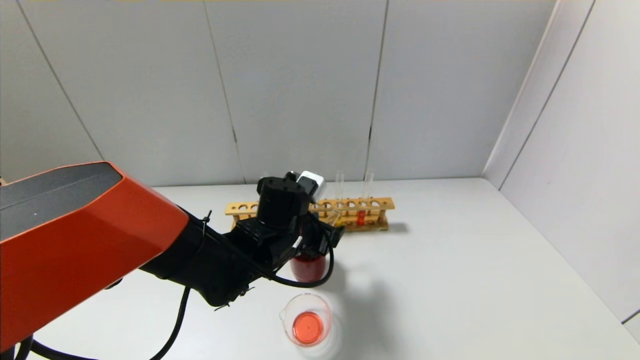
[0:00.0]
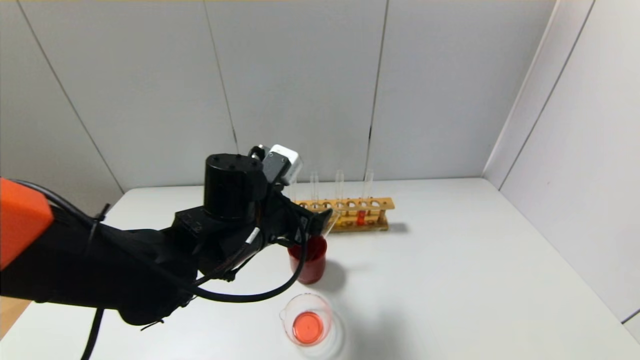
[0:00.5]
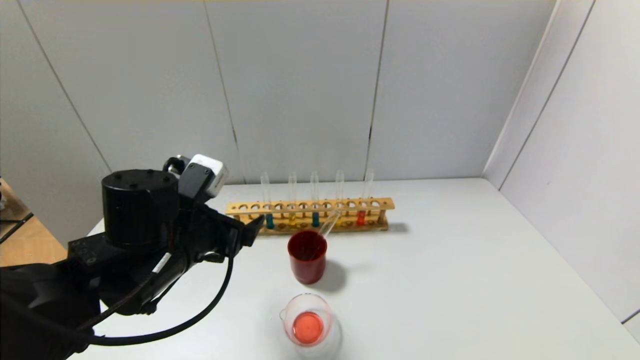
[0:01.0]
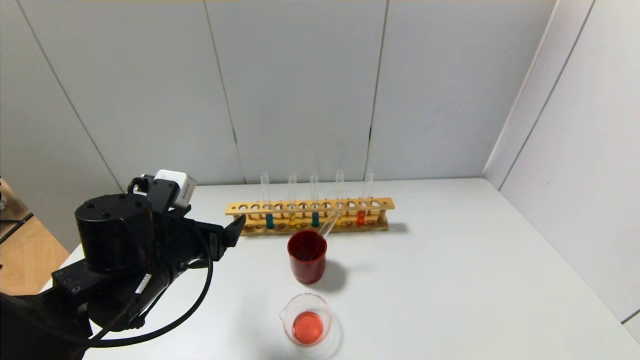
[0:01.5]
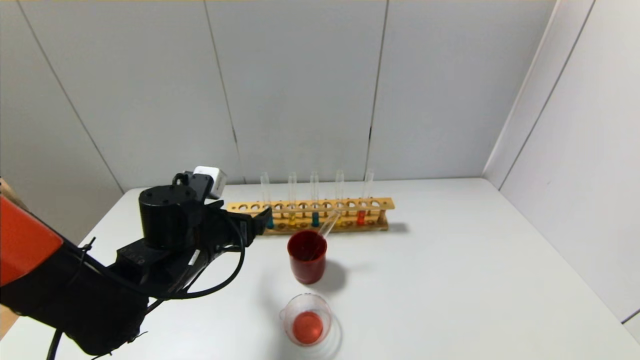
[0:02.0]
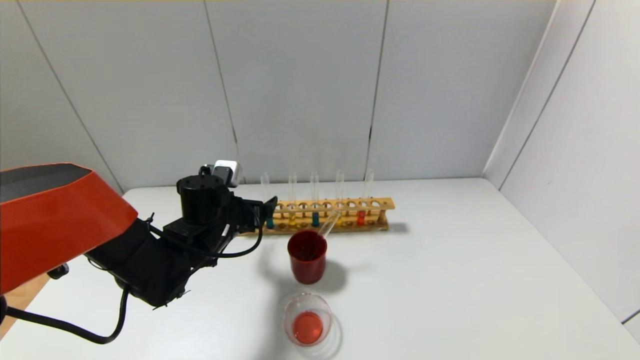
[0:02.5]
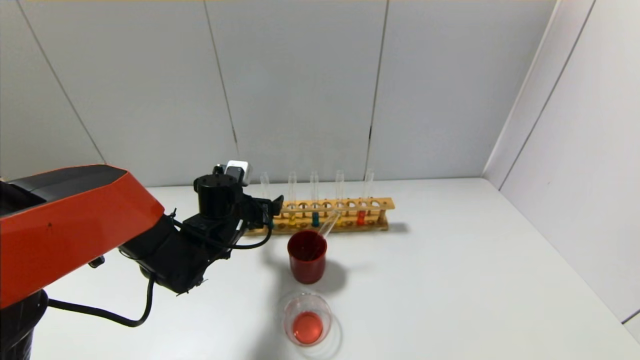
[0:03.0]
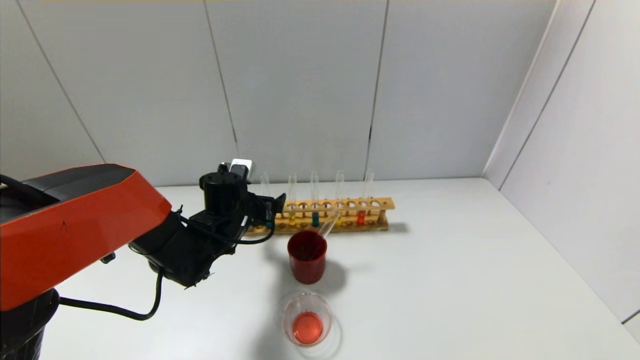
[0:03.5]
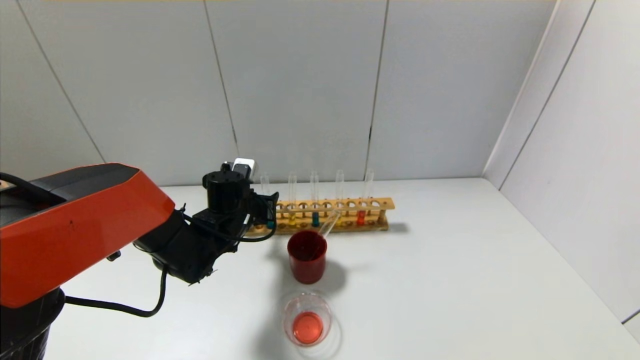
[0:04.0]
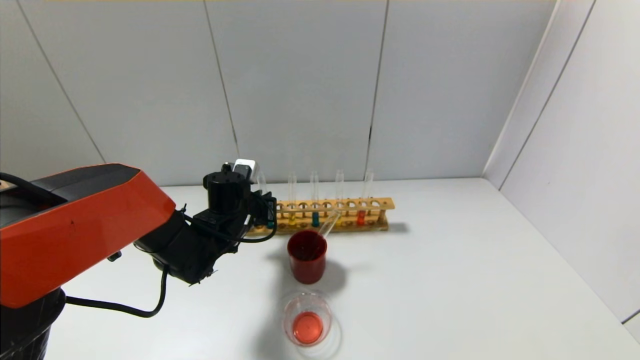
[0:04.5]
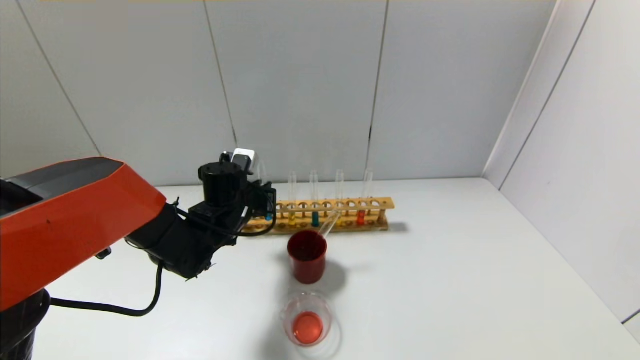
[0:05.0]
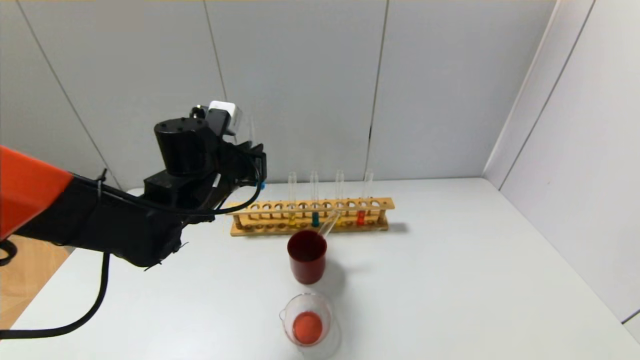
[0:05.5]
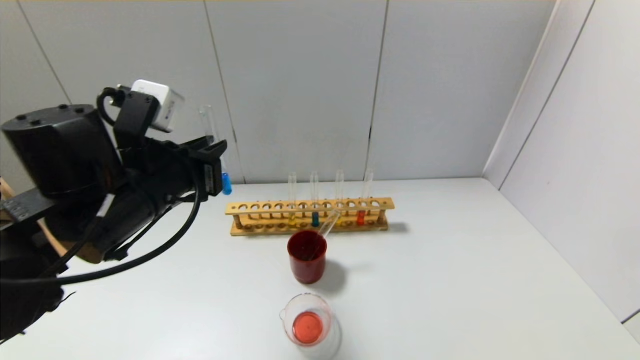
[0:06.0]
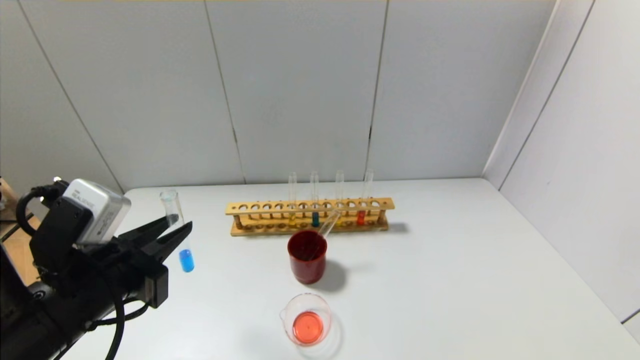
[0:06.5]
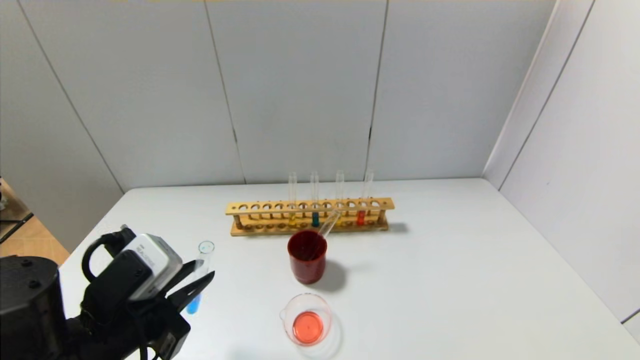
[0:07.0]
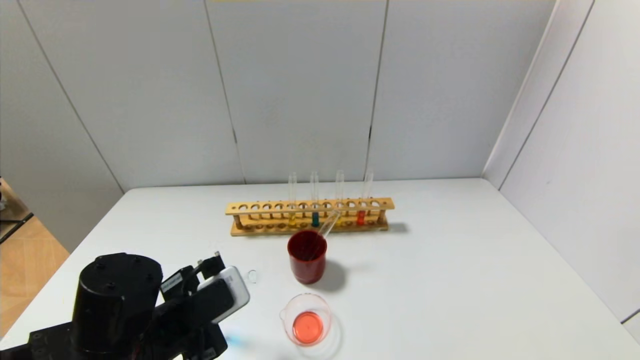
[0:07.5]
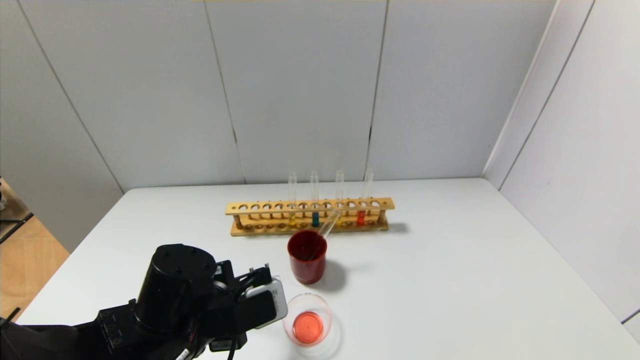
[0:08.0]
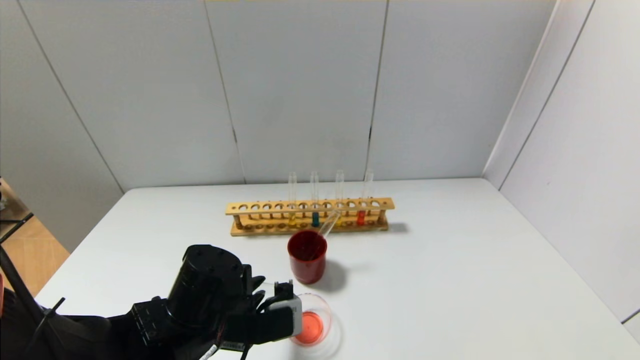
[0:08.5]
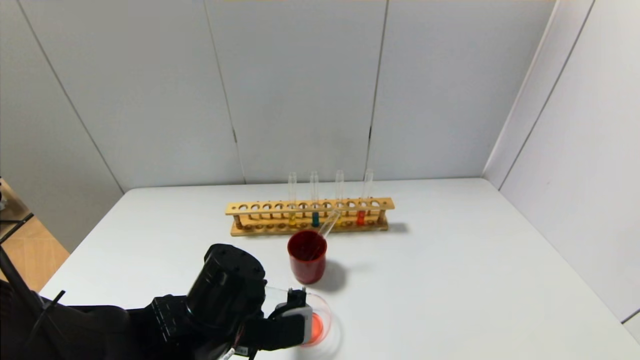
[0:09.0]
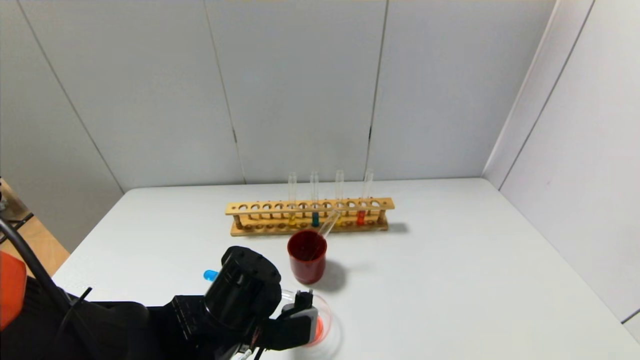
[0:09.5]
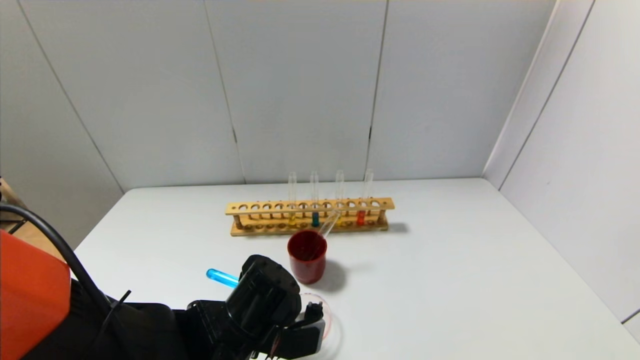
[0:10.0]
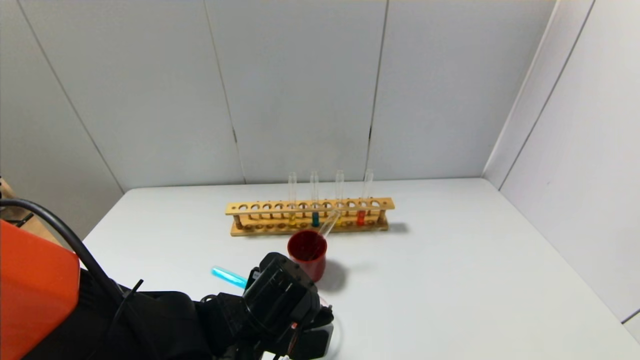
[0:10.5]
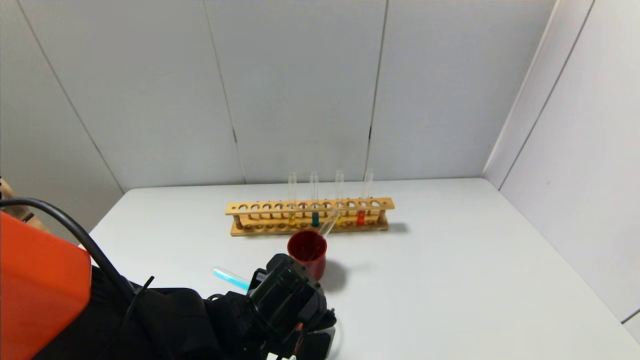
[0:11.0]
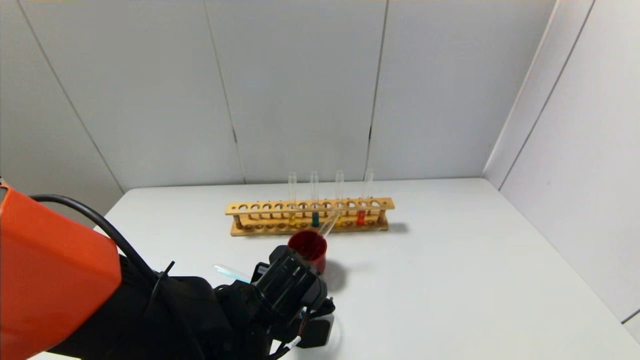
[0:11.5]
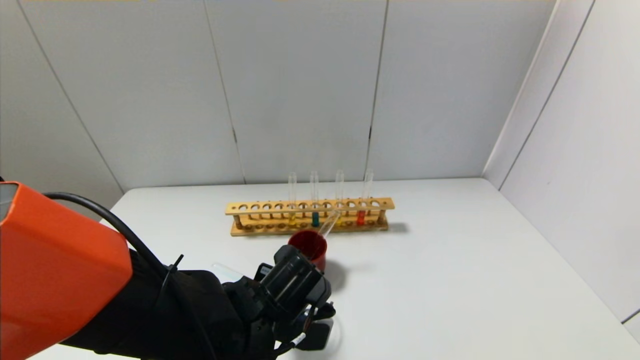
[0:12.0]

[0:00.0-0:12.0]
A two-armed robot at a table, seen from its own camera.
Step, 0:00.5 to 0:04.5: Grasp the blue reagent with the left gripper.
0:00.0 to 0:02.0: The left gripper is displaced to the left by some 10 cm.
0:02.0 to 0:04.0: The left gripper travels forward by roughly 10 cm, and closes its fingers.
0:04.0 to 0:06.0: The left gripper shifts some 20 cm backward and upward, and closes.
0:06.0 to 0:08.0: The left gripper heads downward, covering approximately 15 cm.
0:08.0 to 0:10.0: The left gripper shifts about 5 cm to the right.
0:10.0 to 0:12.0: The grippers make only small movements.

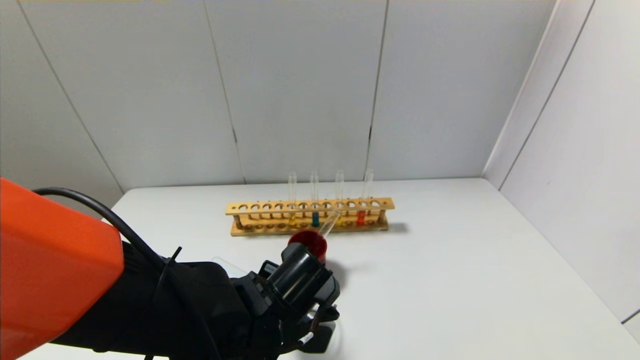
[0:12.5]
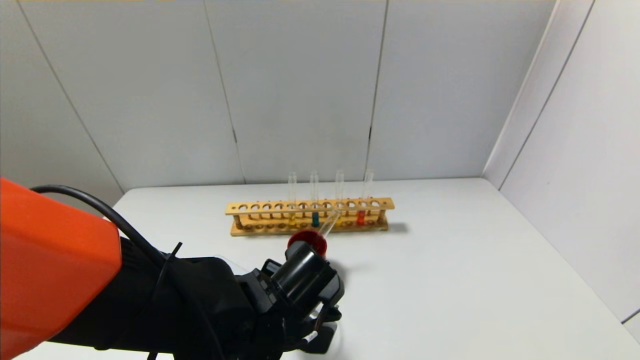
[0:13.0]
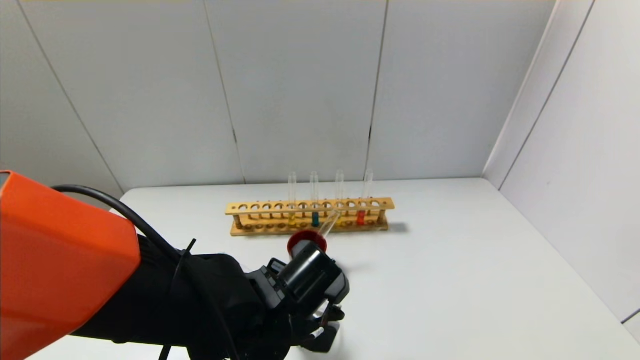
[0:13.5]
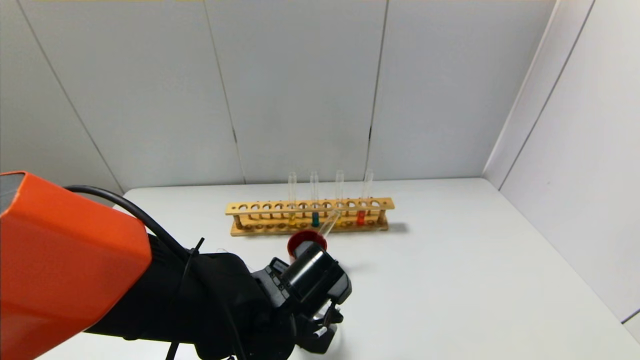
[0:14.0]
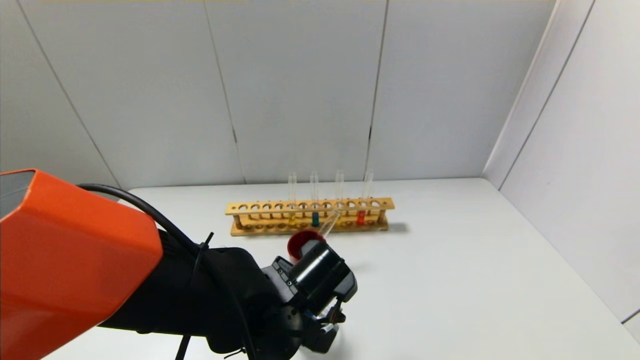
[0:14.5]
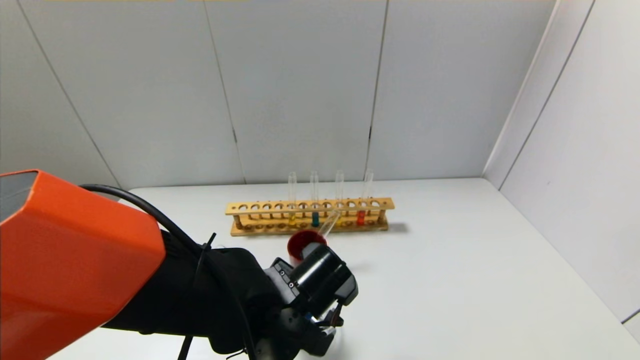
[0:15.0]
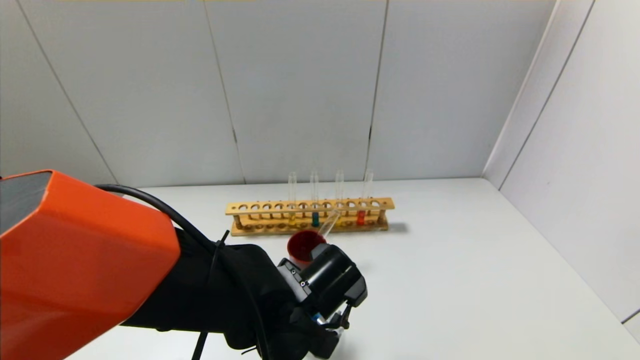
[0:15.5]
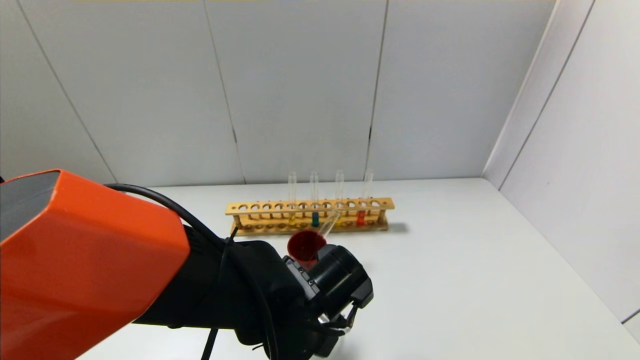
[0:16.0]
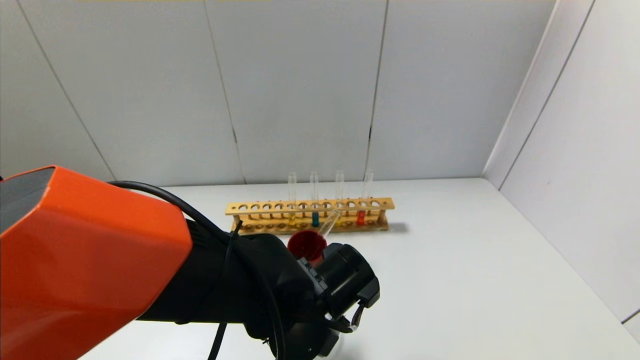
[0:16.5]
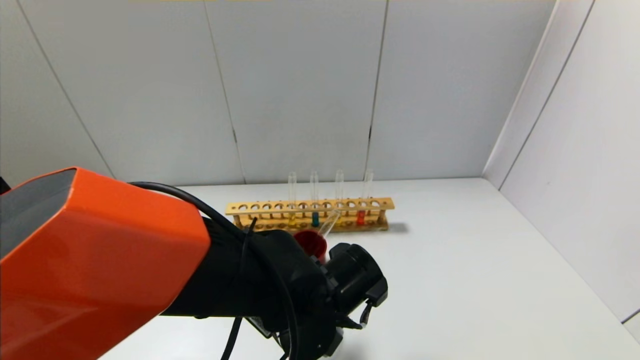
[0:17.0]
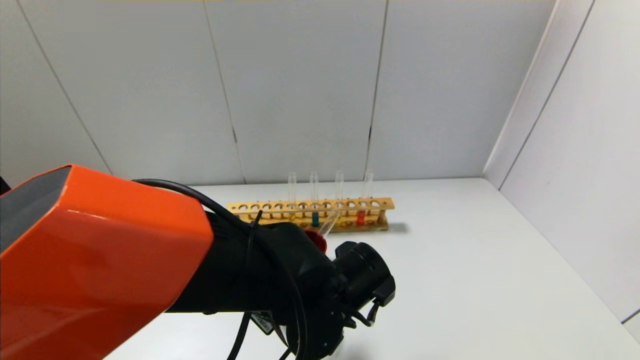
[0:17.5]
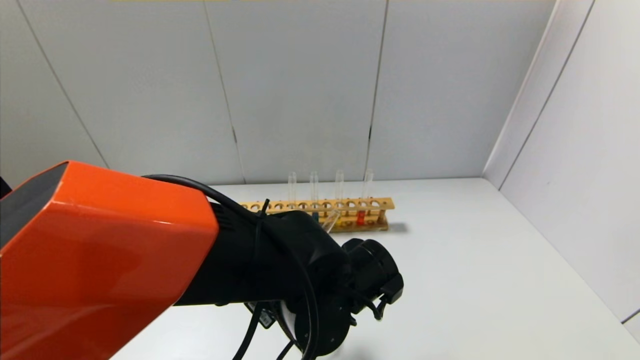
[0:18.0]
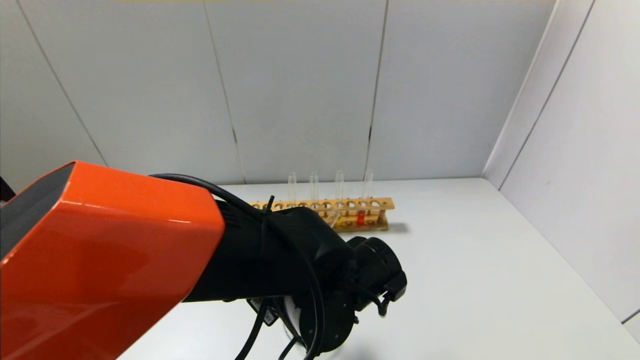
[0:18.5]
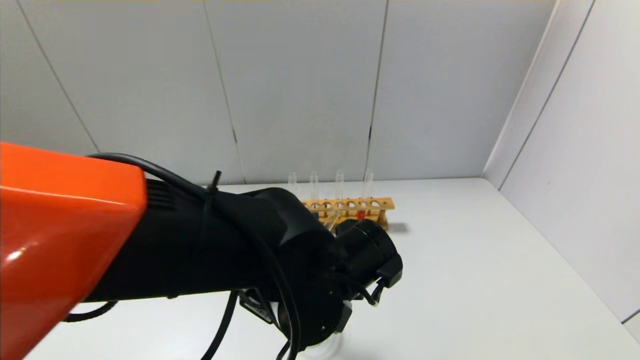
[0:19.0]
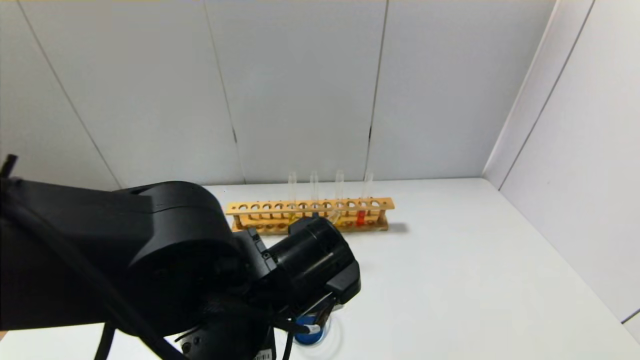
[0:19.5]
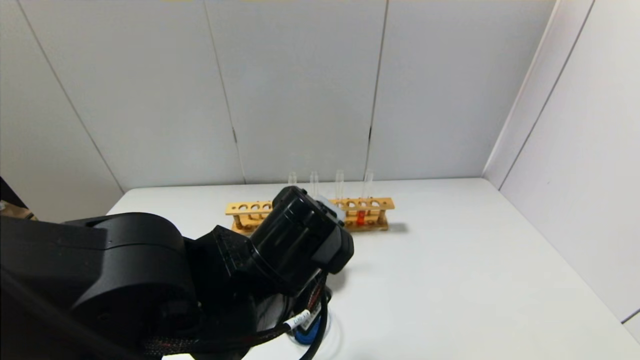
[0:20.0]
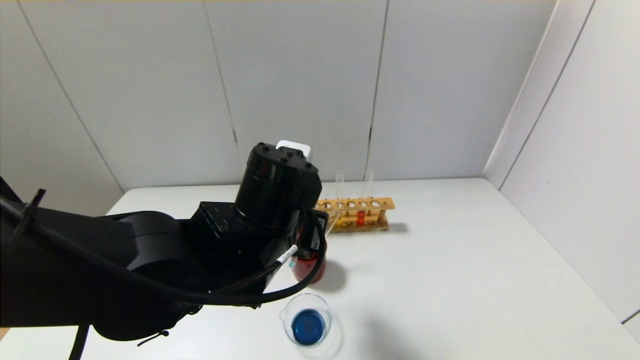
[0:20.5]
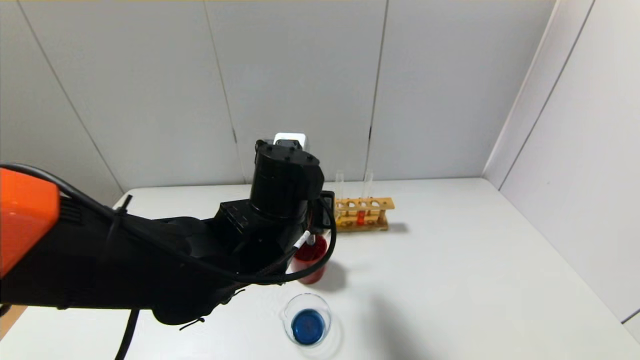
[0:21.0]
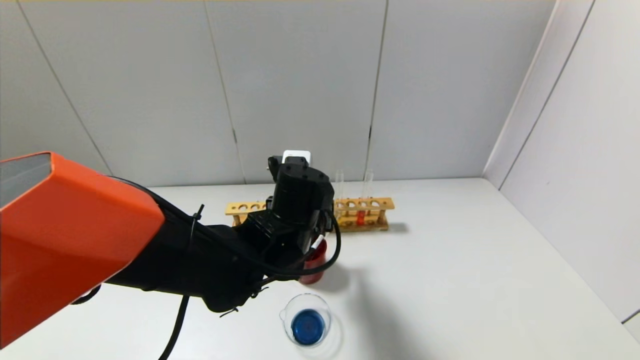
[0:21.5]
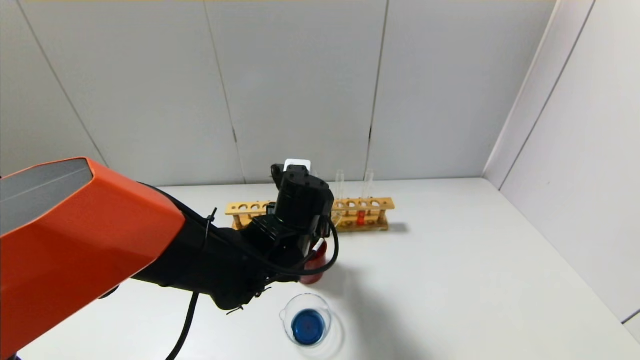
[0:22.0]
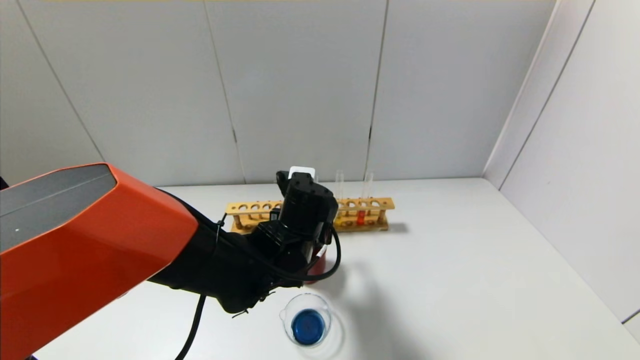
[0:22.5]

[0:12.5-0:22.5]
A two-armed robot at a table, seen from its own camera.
Step, 0:12.5 to 0:19.0: Pour the blue reagent into the graduated cylinder with the left gripper.
0:12.5 to 0:14.5: The grippers move only a little.
0:14.5 to 0:16.5: The grippers stay close to where they were, moving slightly.
0:16.5 to 0:18.5: There are only small adjustments of the grippers.
0:18.5 to 0:20.5: The left gripper moves upward, some 5 cm.
0:20.5 to 0:22.5: The left gripper moves downward and forward, approximately 10 cm, and opens.
